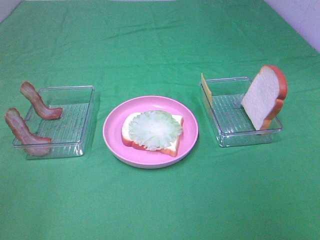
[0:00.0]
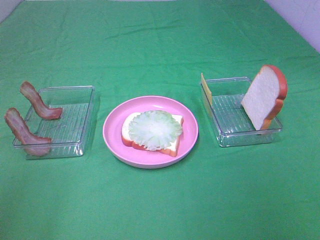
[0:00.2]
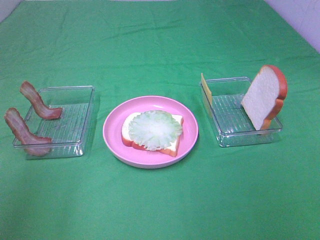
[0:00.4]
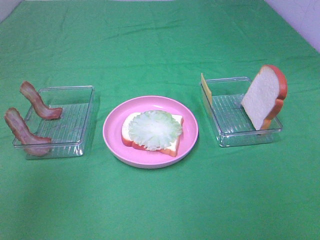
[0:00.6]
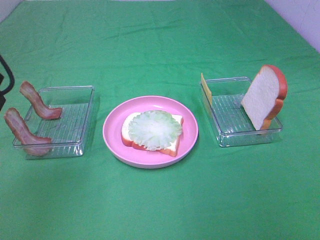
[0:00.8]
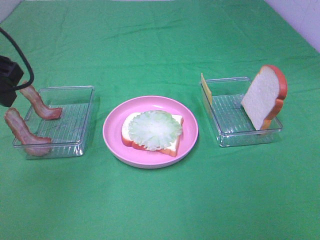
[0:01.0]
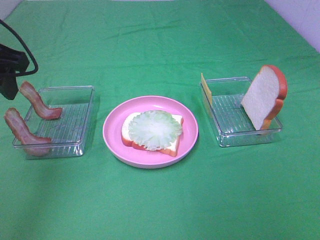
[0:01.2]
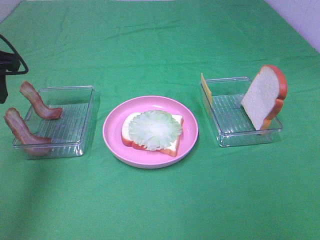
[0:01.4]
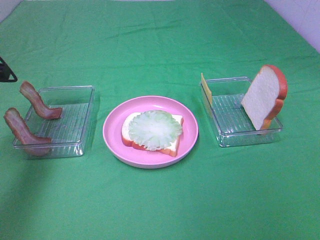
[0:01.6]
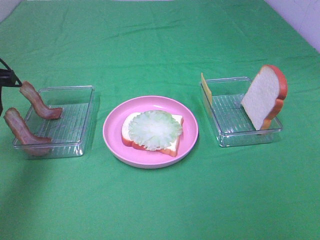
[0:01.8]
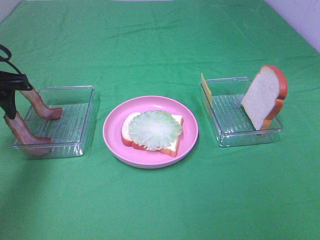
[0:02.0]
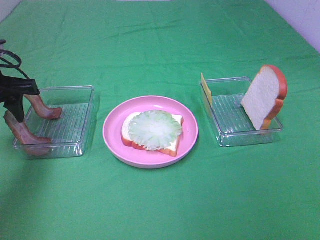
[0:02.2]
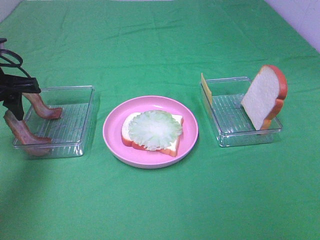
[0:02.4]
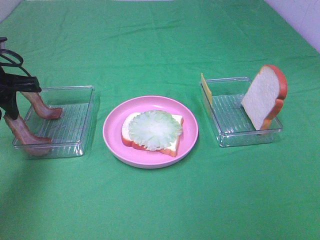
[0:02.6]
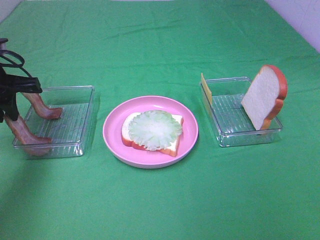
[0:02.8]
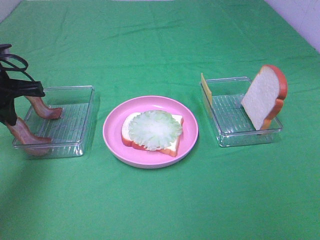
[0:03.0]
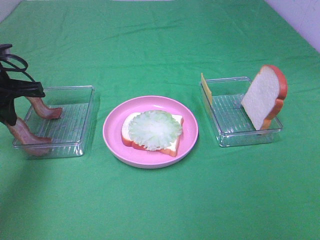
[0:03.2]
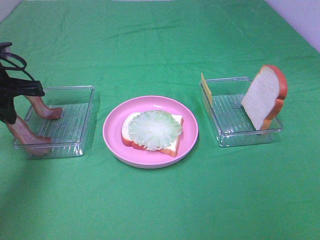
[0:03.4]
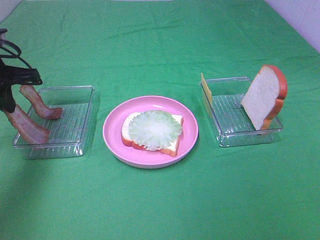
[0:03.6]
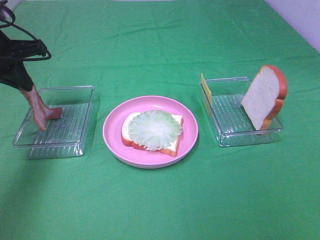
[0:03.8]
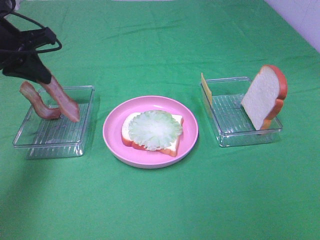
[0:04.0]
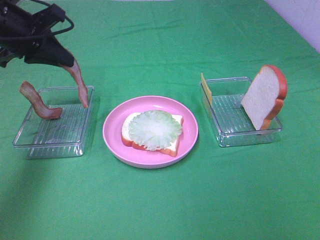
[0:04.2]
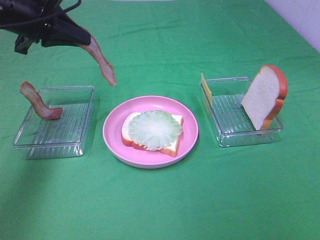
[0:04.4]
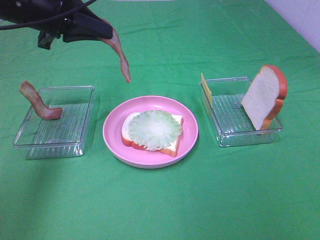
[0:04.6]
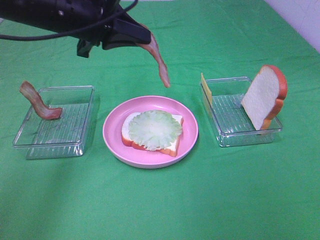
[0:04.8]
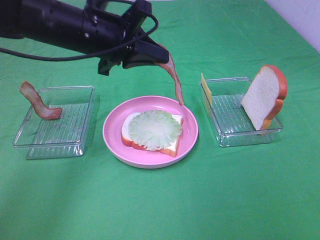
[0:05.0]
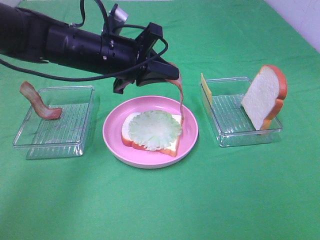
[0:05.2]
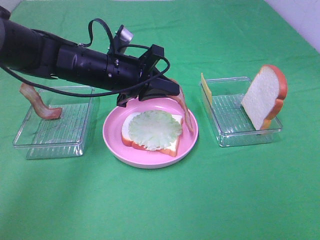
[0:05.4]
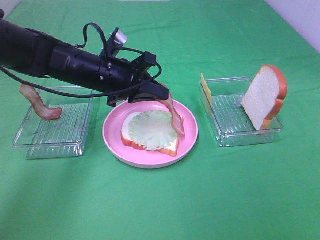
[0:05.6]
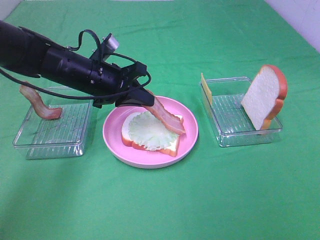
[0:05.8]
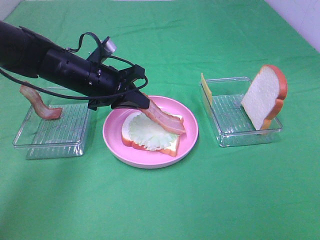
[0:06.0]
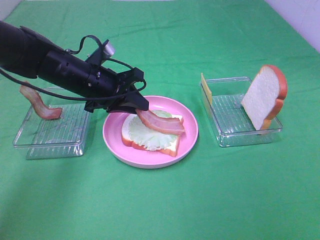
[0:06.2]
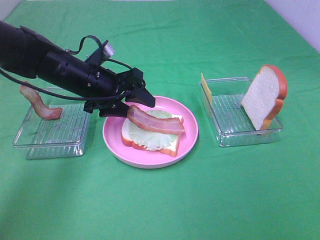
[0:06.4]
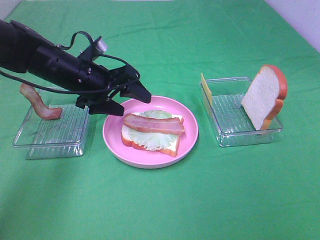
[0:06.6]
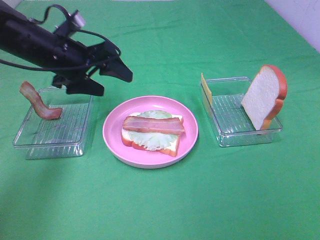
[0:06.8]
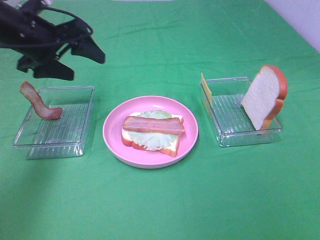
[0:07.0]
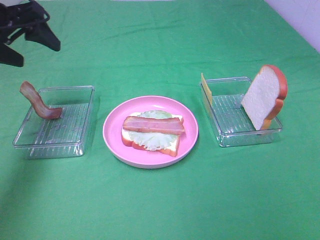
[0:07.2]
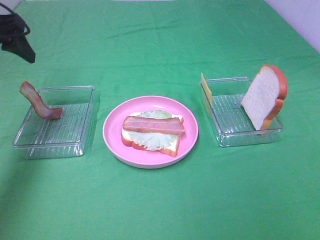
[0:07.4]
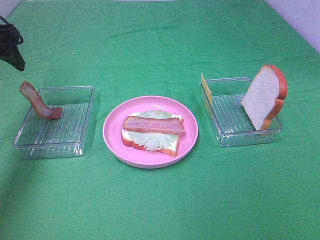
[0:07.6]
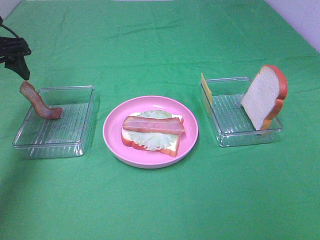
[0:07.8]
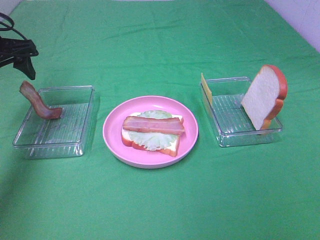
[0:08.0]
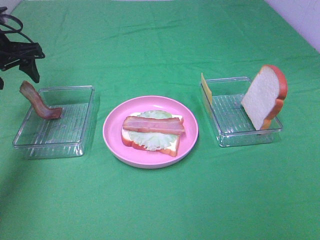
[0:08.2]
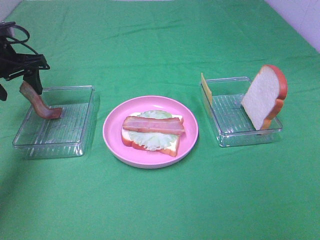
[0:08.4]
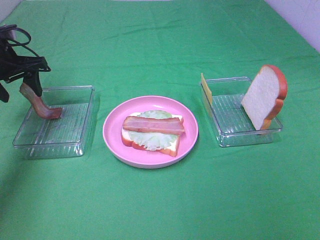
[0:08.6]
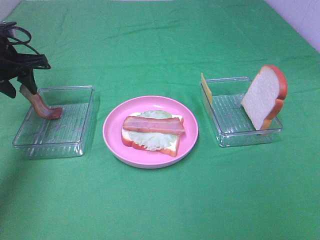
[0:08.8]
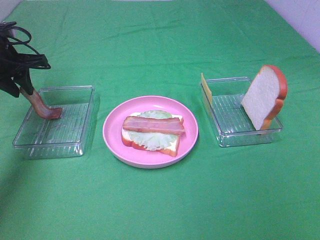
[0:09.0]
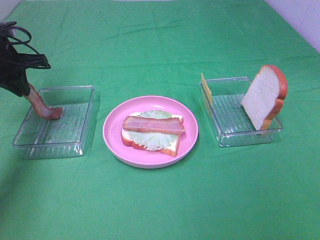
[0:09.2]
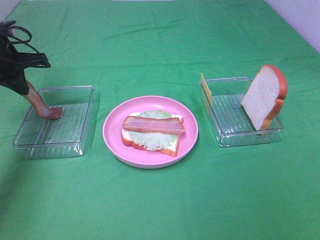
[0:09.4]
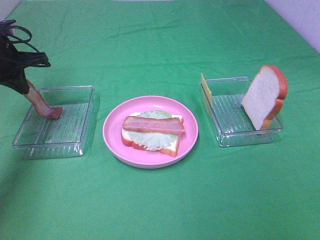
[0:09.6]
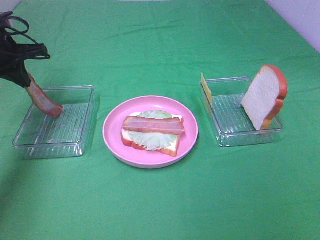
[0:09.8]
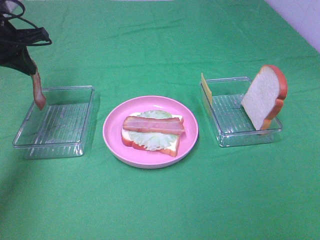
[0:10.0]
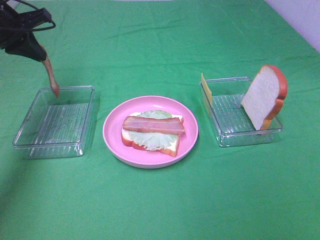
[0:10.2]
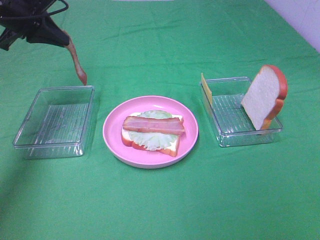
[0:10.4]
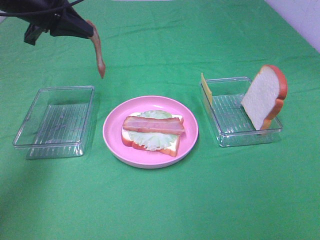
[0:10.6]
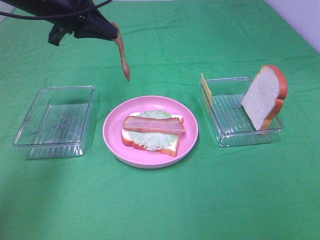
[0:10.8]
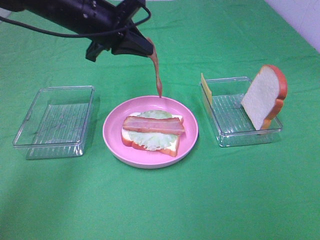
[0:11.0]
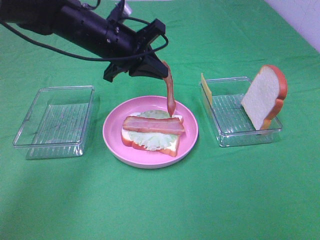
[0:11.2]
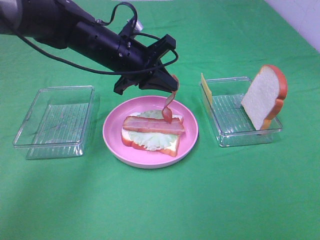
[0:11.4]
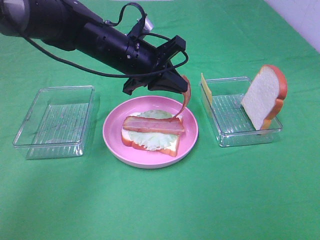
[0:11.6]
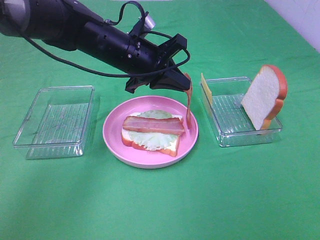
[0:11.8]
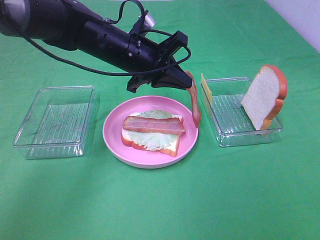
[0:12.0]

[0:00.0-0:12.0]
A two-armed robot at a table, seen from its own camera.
Task of the whole recording: Make sandwiches.
Step, 0:00.0 to 0:03.4: Left hand:grab the bacon.
Step, 0:03.6 to 0:06.6: Left hand:place bacon on lettuce slice.
Step, 0:06.8 to 0:09.6: Left hand:grab the bacon.
0:00.0 to 0:01.6: The left gripper goes some 30 cm forward.
0:01.6 to 0:03.0: The left gripper is displaced downward by some 5 cm, and closes up.
0:03.0 to 0:04.4: The left gripper shifts roughly 10 cm upward and to the right.
0:04.4 to 0:06.0: The left gripper shifts approximately 15 cm downward and to the right.
0:06.0 to 0:07.6: The left gripper is displaced to the left and upward by approximately 20 cm, and opens.
0:07.6 to 0:09.0: The left gripper moves downward and forward, roughly 10 cm, and closes.
0:09.0 to 0:10.4: The left gripper shifts some 10 cm upward and to the right, and closes its fingers.
0:10.4 to 0:12.0: The left gripper heads to the right, covering about 20 cm.

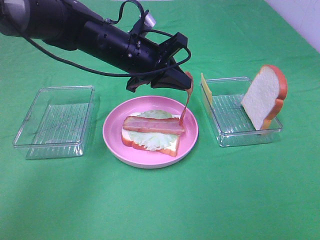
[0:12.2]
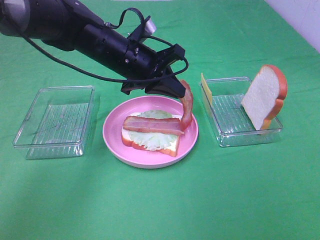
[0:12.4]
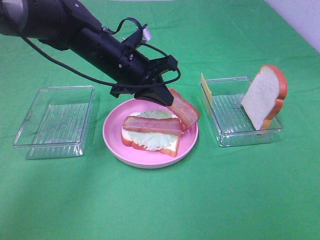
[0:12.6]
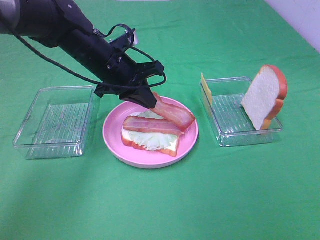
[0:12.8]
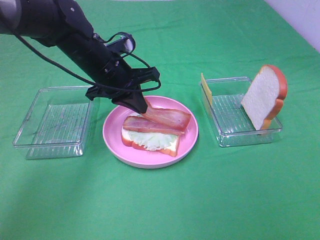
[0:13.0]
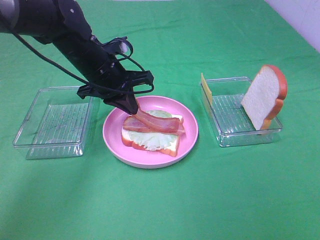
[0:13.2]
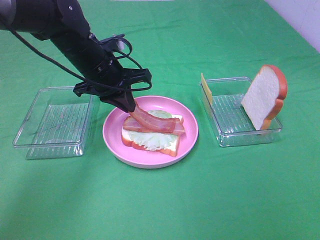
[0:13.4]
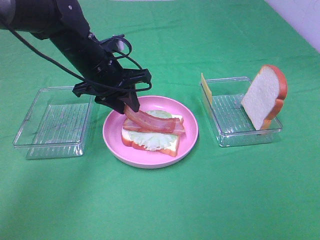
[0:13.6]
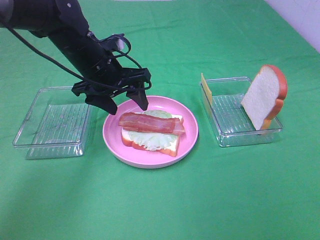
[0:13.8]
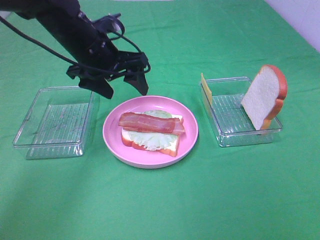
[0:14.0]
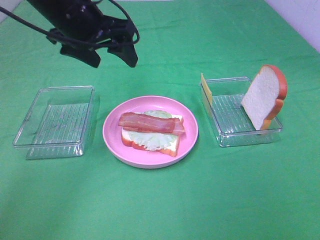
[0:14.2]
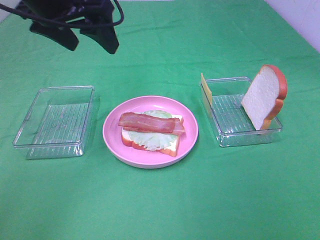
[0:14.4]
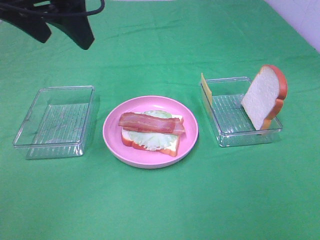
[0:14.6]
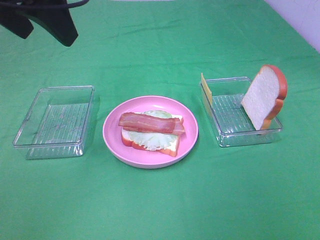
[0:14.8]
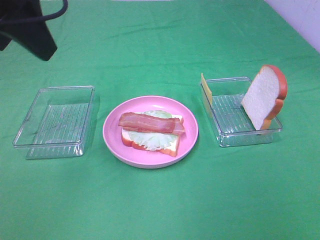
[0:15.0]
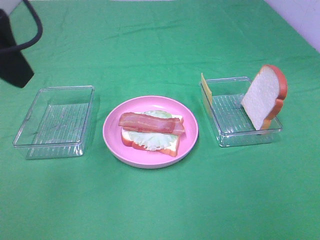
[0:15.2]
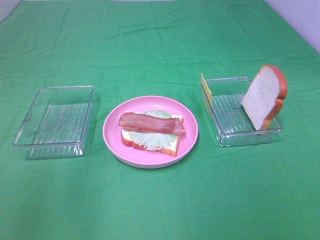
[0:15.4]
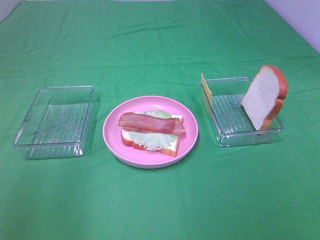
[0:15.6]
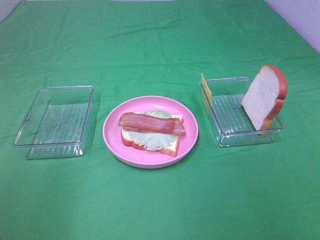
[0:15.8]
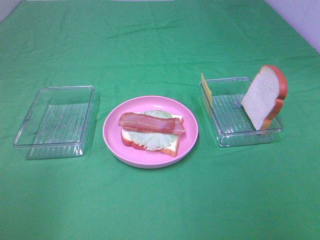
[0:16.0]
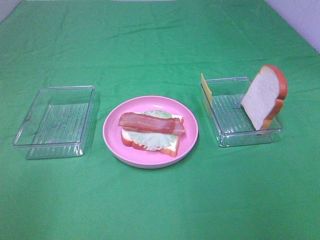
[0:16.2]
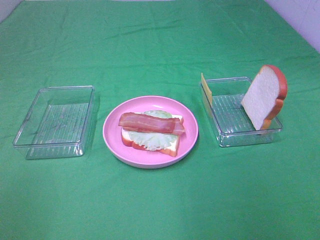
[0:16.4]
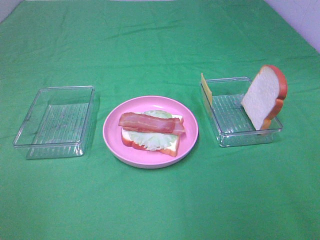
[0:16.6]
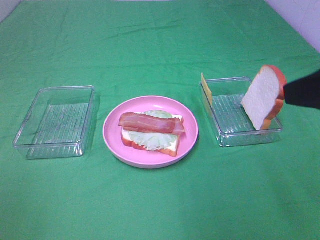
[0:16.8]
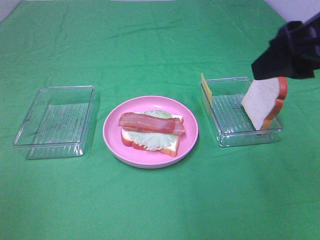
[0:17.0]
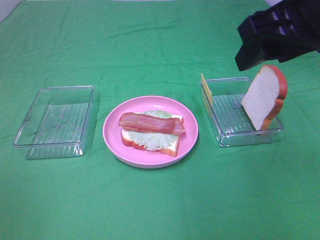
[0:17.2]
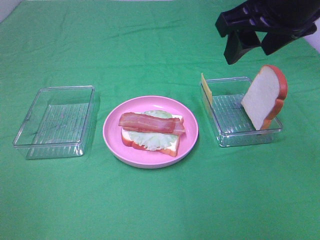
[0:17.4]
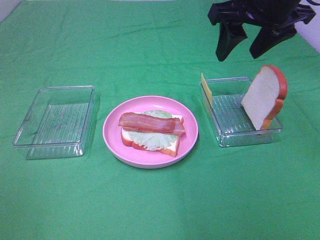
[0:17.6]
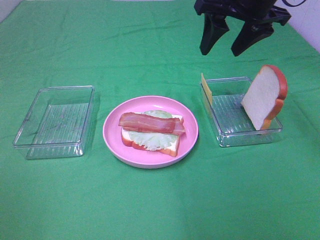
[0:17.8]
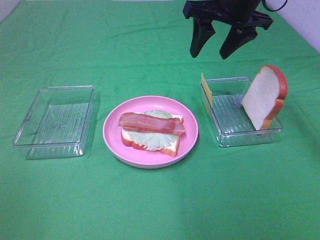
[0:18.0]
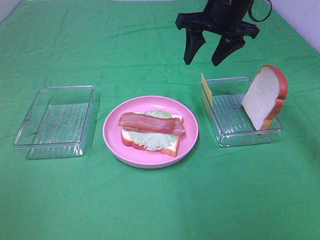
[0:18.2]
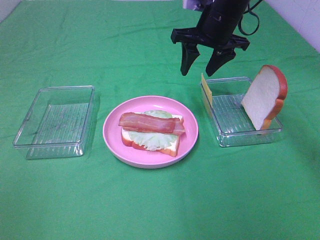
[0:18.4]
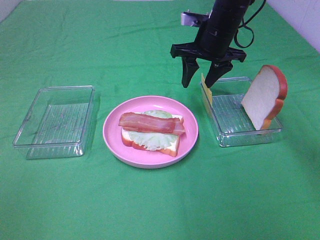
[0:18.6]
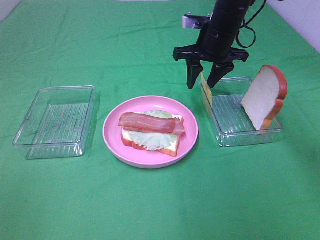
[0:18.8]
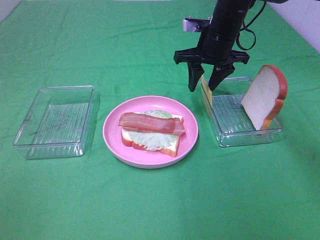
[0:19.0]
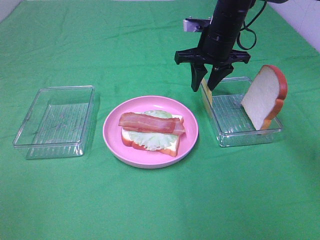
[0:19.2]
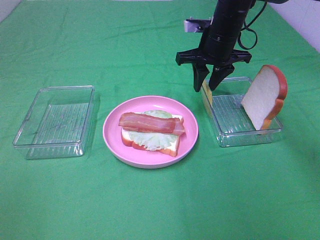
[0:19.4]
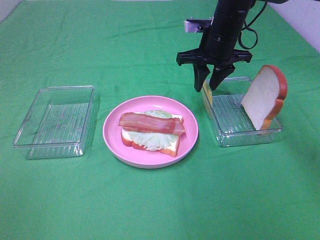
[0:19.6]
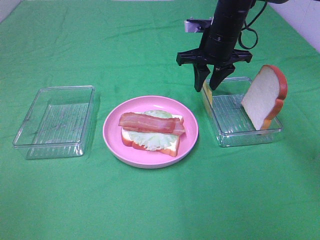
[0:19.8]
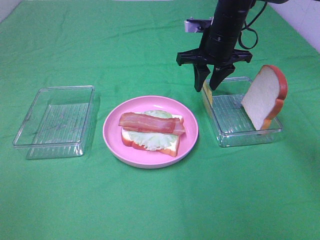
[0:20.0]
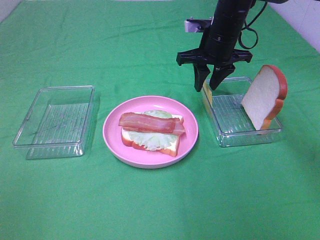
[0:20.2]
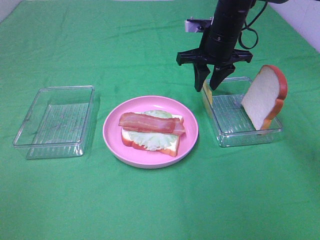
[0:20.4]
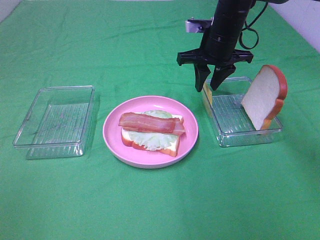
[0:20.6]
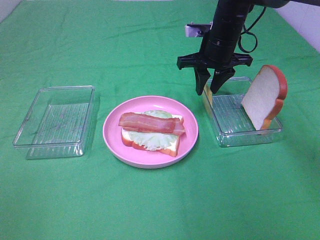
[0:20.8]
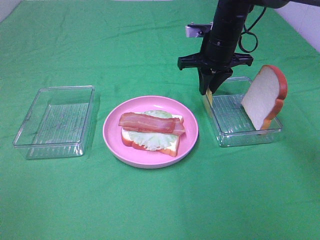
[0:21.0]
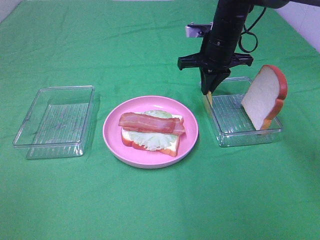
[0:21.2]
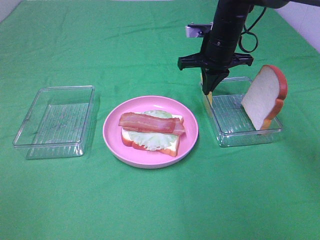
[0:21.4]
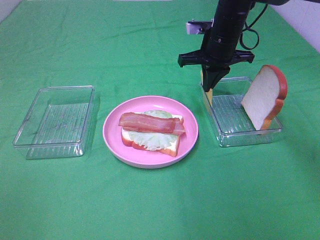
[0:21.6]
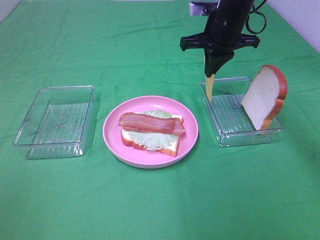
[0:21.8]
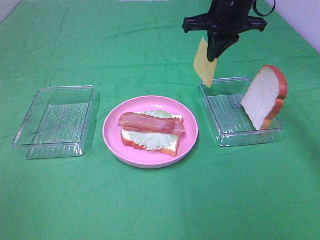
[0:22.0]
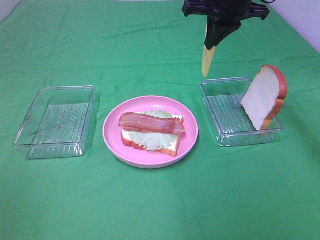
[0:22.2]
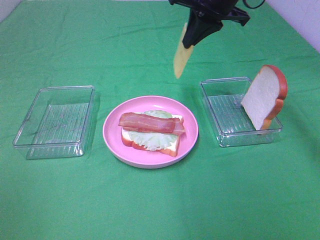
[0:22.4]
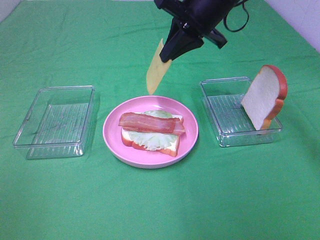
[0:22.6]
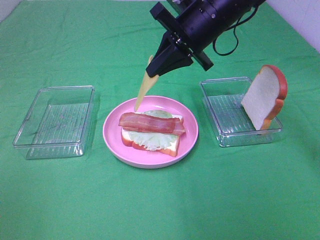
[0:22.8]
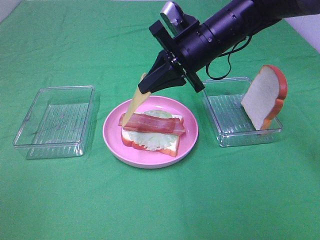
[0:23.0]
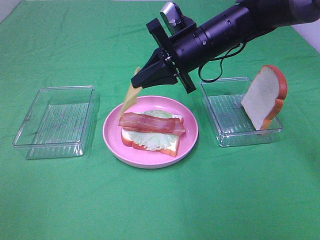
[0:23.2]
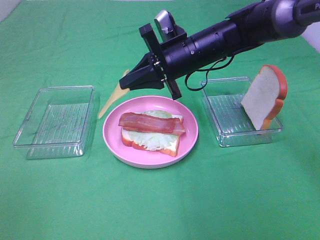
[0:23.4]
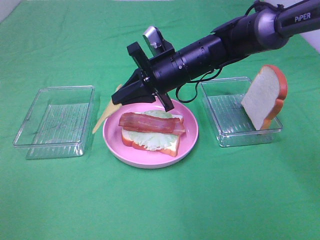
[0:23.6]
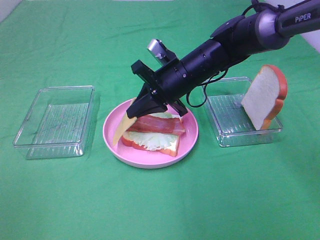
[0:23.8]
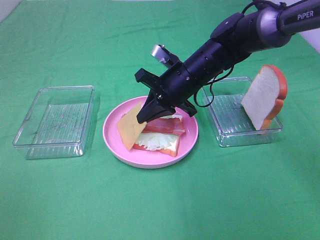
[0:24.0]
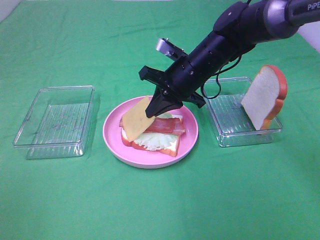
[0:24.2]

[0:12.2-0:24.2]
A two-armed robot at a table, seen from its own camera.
Task of the whole recording: Make sandwiches.
Step, 0:14.0 to 0:21.2: Right hand:grab the cheese slice.
0:12.2 to 0:13.8: The left gripper travels to the left by roughly 5 cm, and opens.
0:13.8 to 0:15.2: The left gripper shifts approximately 30 cm upward, backward and to the left.
0:15.2 to 0:16.6: The left gripper is displaced backward, to the left and downward by about 25 cm.
0:16.6 to 0:18.2: The right gripper travels forward by roughly 35 cm.
0:18.2 to 0:19.8: The right gripper moves downward, roughly 5 cm.
0:19.8 to 0:21.2: The right gripper closes its fingers.
0:21.2 to 0:22.6: The right gripper goes about 10 cm upward and backward.
0:22.6 to 0:24.2: The right gripper moves downward, roughly 10 cm.
